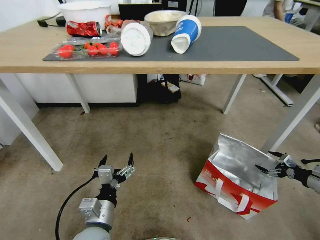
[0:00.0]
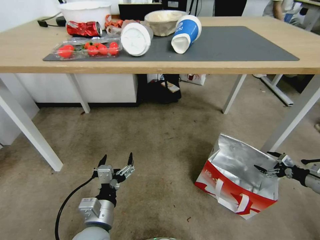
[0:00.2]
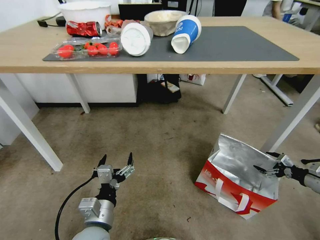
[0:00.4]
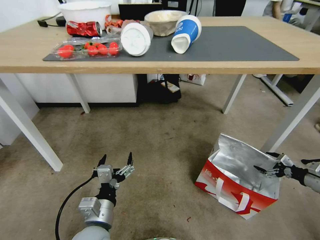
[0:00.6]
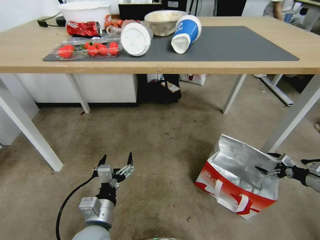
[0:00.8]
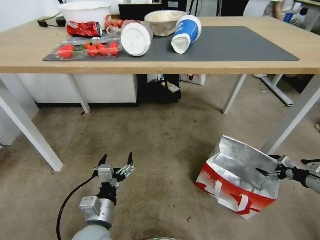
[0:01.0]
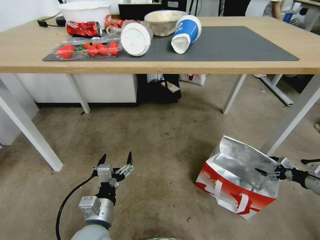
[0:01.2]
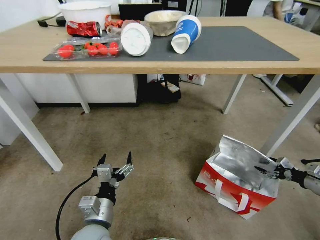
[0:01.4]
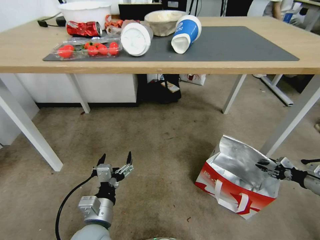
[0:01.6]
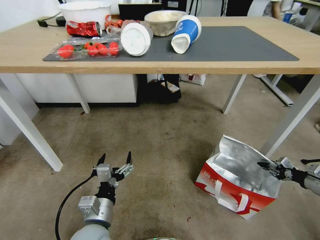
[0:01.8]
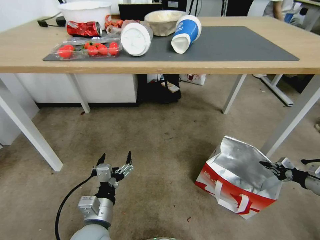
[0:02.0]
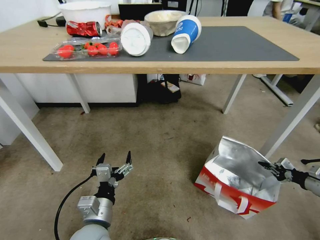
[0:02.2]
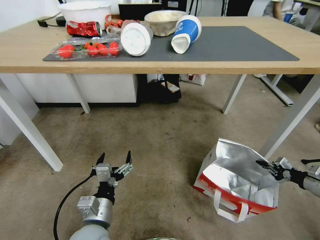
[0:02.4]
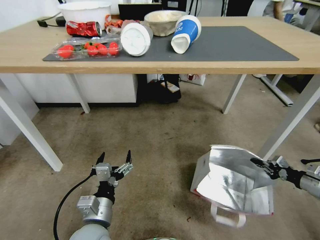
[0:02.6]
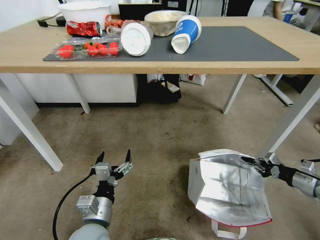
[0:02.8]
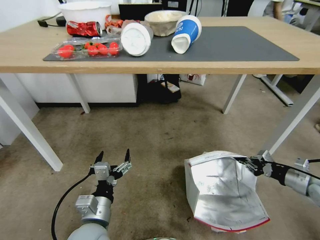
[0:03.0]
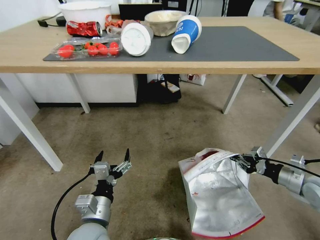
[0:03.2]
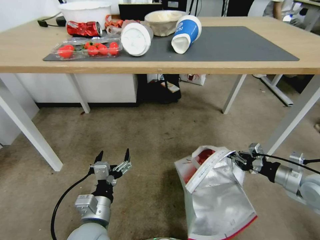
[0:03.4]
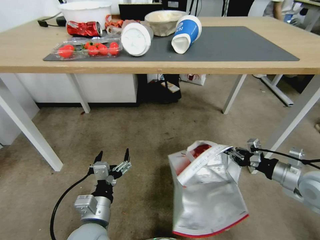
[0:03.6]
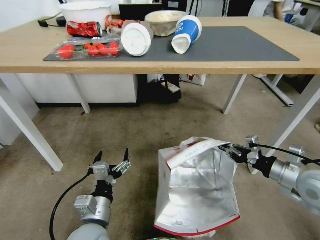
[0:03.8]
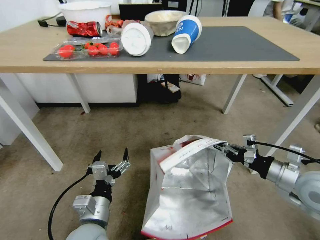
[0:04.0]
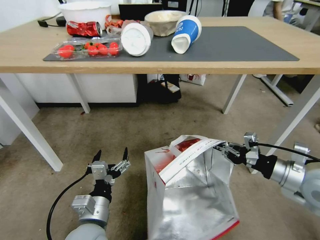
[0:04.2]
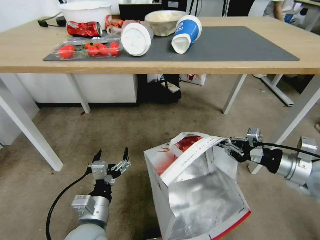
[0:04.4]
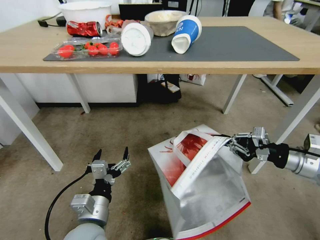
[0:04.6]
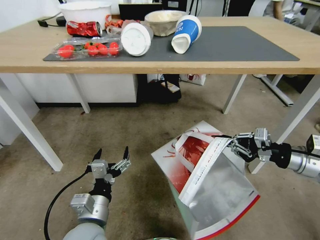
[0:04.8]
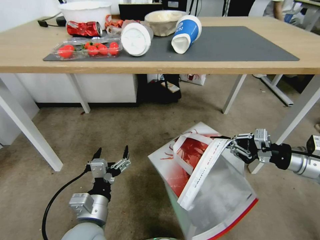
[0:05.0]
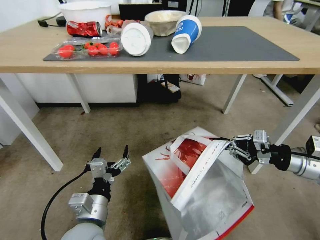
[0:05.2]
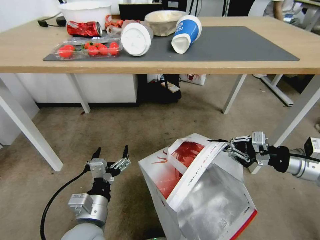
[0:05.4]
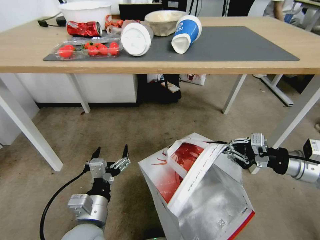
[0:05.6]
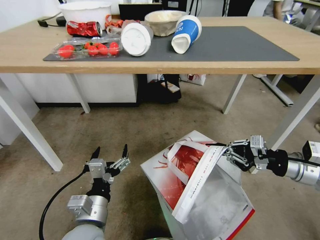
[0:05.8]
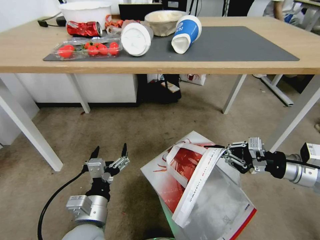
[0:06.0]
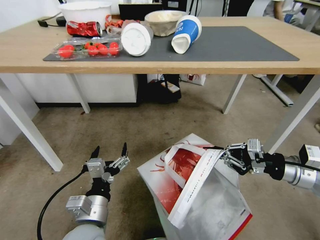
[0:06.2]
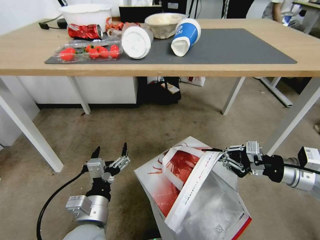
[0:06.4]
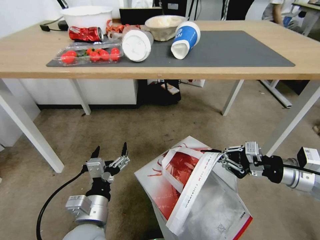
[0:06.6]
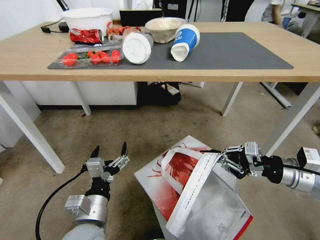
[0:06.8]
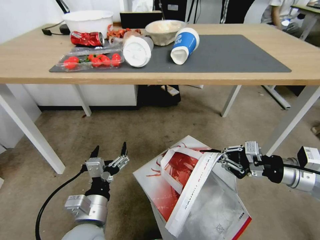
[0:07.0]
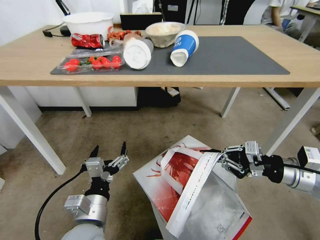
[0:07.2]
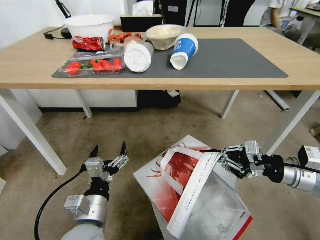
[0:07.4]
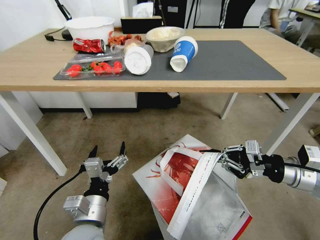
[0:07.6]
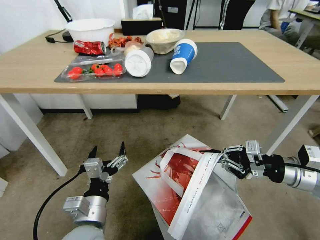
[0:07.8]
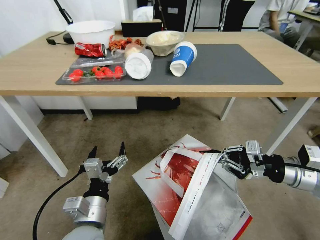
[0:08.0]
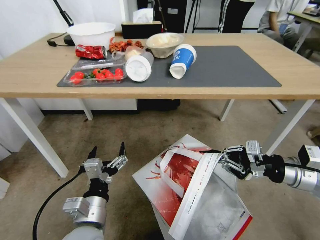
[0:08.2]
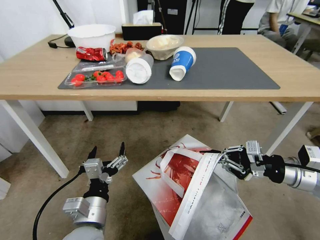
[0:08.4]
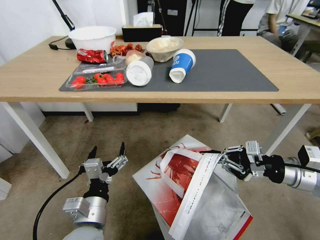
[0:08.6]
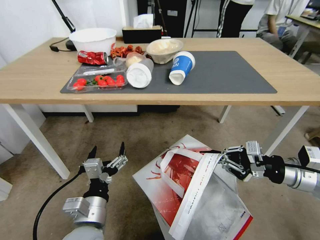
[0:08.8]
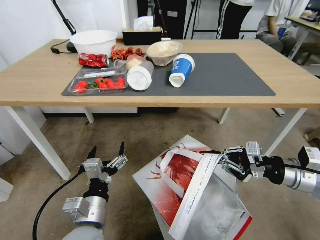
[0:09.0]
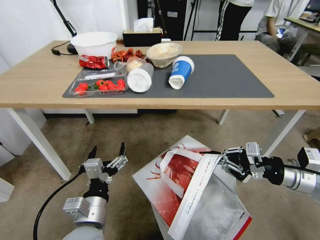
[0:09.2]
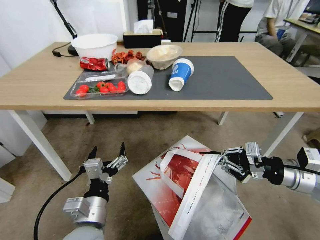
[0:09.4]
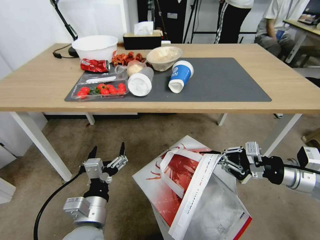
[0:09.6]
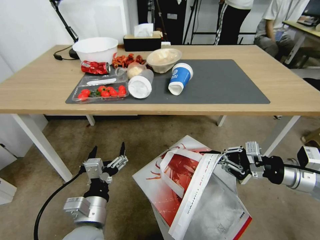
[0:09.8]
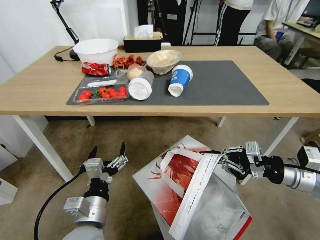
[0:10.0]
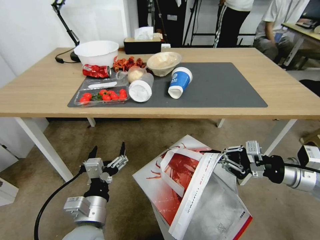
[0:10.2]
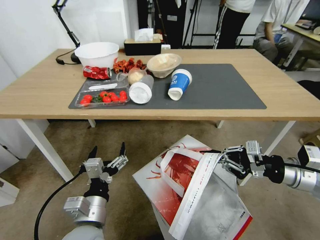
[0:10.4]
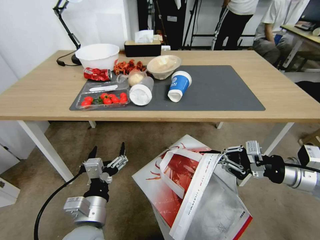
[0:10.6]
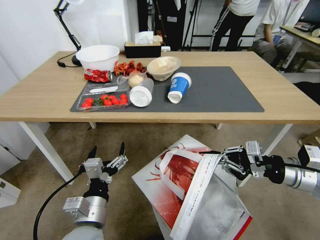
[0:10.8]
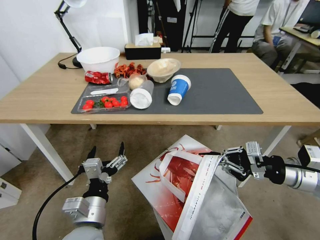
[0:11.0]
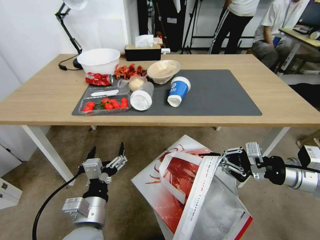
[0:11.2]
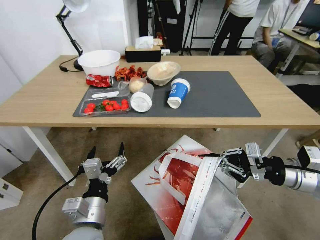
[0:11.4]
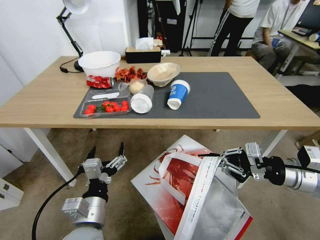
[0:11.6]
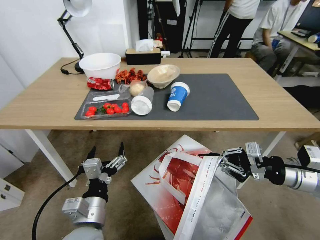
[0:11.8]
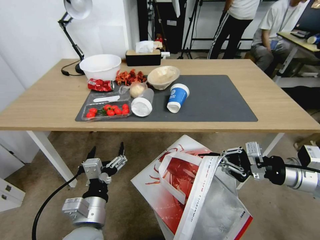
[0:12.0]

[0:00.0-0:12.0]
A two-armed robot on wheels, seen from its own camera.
Task of the whole recording: Pick up the food delivery bag from the floor and place it on the table.
0:00.0 to 0:01.6: The right gripper closes.
0:01.6 to 0:03.0: The right gripper travels to the left and upward by roughly 10 cm, and closes.
0:03.0 to 0:04.4: The right gripper heads upward and to the left, covering roughly 20 cm.
0:04.4 to 0:06.0: There are only small adjustments of the grippers.

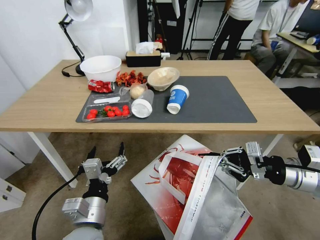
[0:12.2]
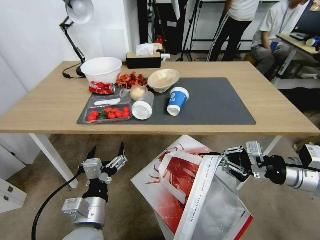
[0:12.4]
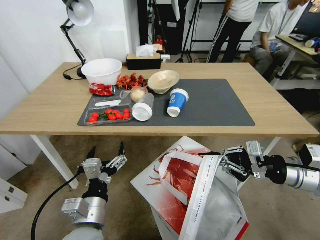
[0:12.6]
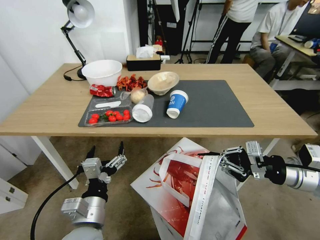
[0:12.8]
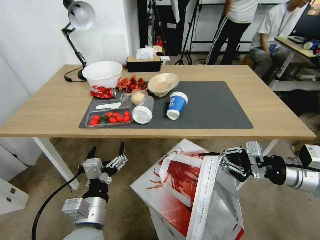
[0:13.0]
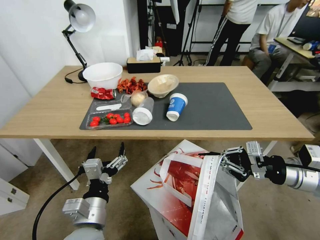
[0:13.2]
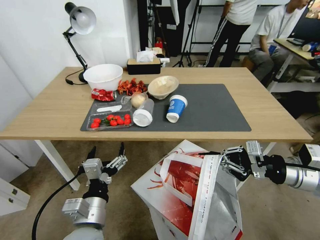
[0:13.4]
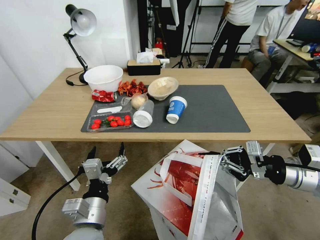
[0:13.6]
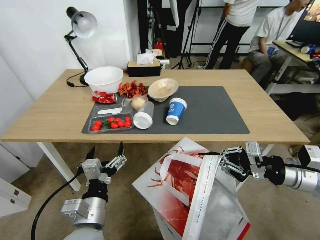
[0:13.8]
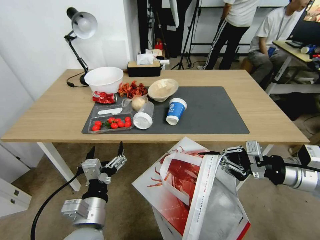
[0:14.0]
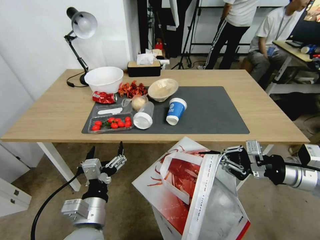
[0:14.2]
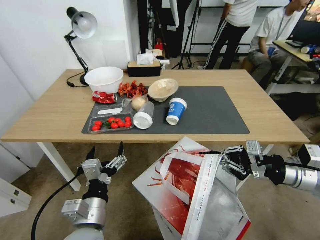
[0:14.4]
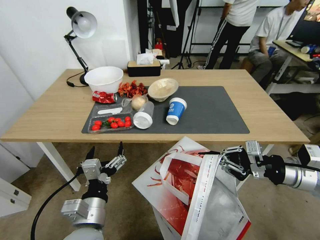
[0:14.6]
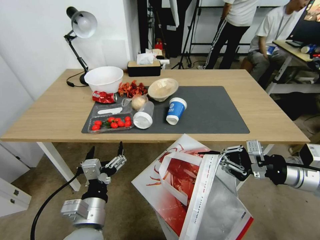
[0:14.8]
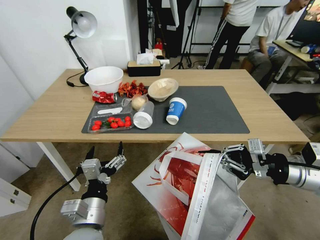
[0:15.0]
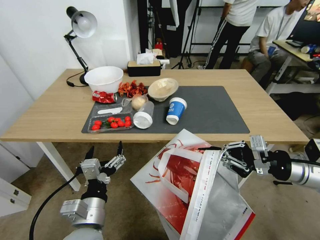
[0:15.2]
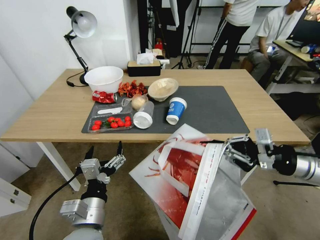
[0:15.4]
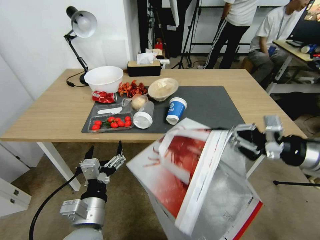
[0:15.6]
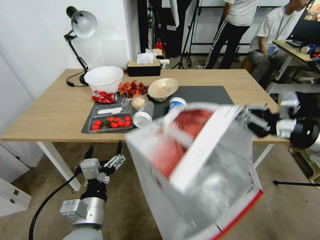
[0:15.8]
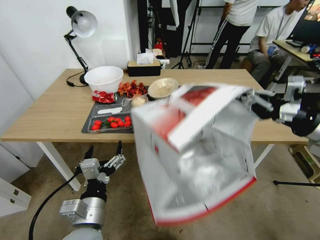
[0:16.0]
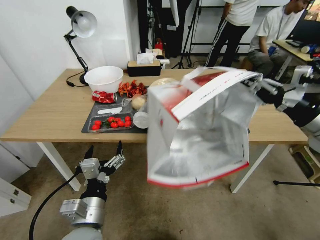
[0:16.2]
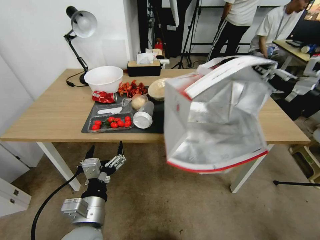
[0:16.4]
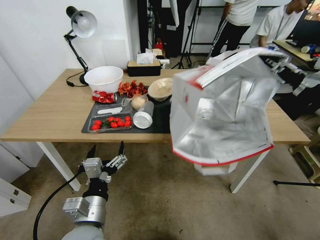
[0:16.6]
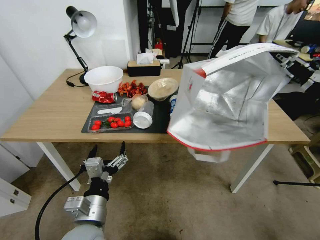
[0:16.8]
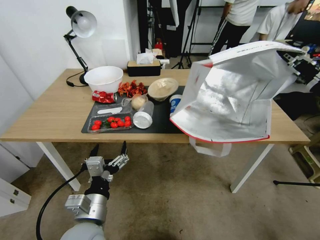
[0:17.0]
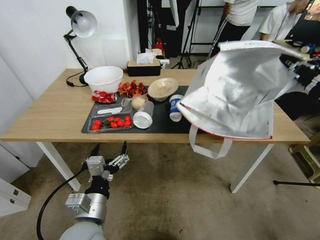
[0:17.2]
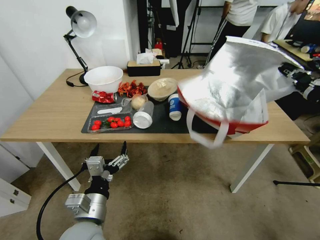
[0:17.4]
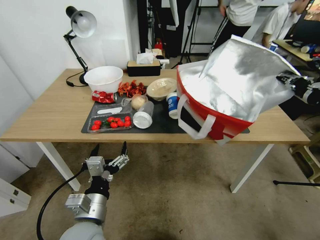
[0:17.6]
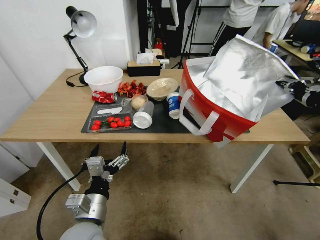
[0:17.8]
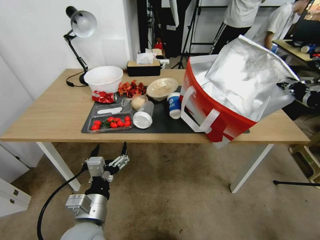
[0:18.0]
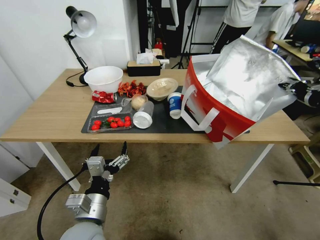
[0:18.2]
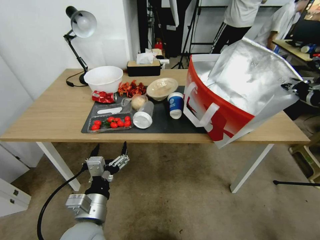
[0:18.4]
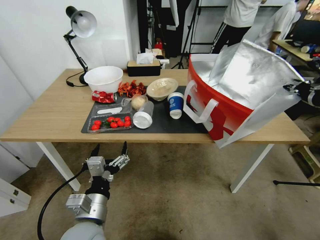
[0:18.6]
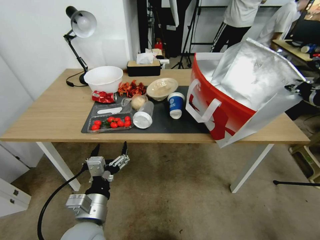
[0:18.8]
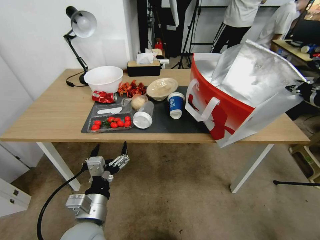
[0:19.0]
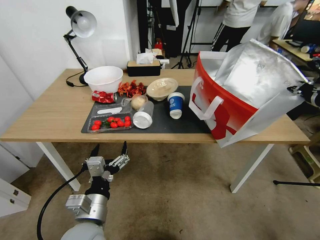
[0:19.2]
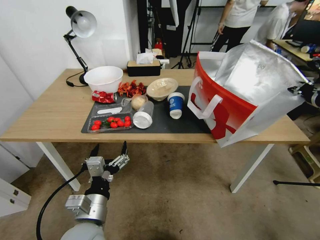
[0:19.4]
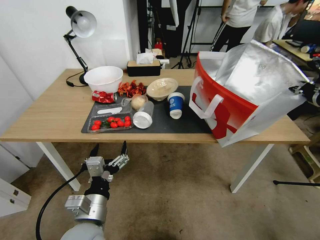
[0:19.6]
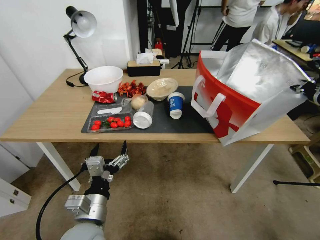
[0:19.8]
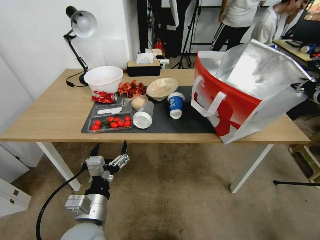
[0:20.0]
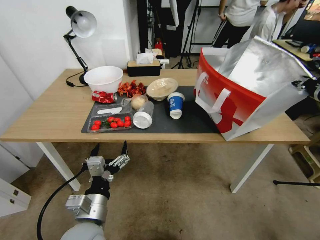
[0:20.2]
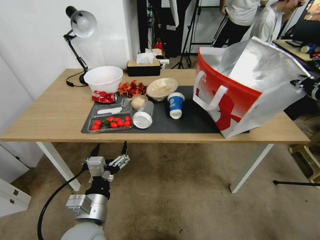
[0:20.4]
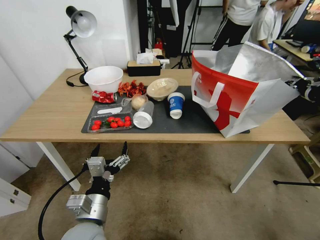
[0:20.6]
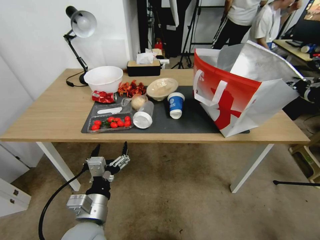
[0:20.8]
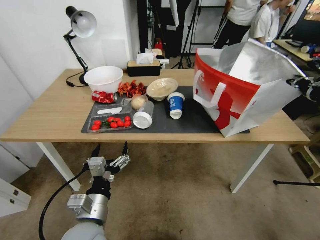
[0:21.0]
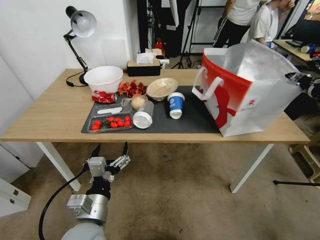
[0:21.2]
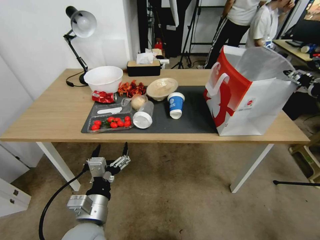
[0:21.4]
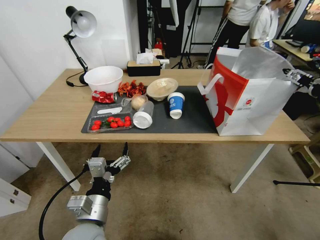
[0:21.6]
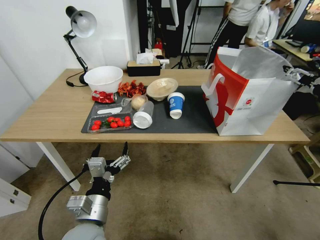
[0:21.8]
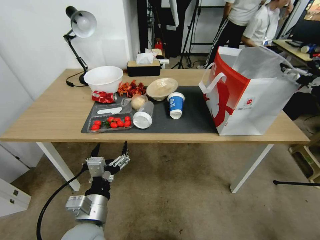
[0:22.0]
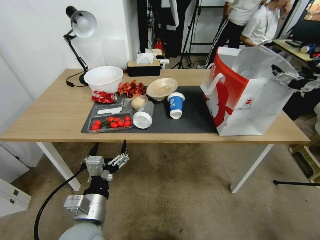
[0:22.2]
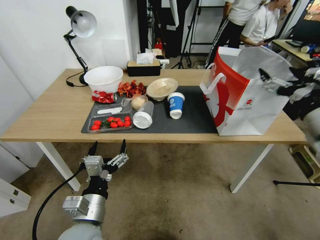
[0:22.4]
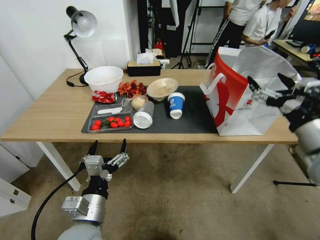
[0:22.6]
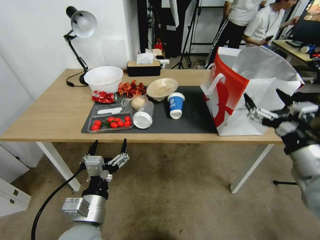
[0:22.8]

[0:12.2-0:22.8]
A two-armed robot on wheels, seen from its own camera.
Task of the whole recording: Pick up the food delivery bag from the floor and place it on the table.
0:13.8 to 0:15.2: The grippers move only a little.
0:15.2 to 0:16.8: The right gripper is displaced upward by approximately 10 cm.
0:18.2 to 0:21.2: The grippers move only a little.
0:21.2 to 0:22.8: The right gripper heads downward, backward and to the left, covering roughly 20 cm, and opens its fingers.
